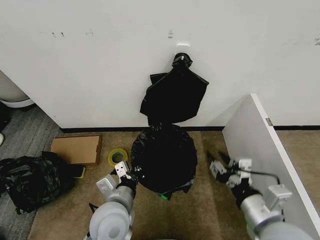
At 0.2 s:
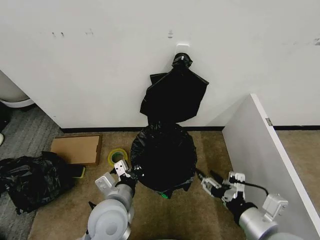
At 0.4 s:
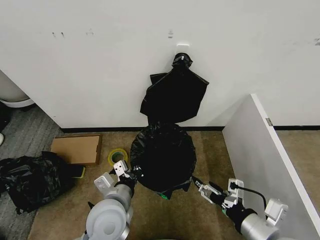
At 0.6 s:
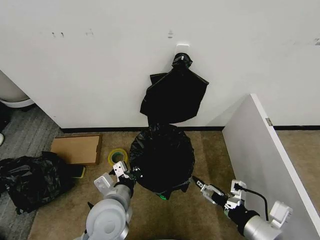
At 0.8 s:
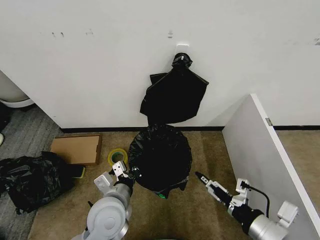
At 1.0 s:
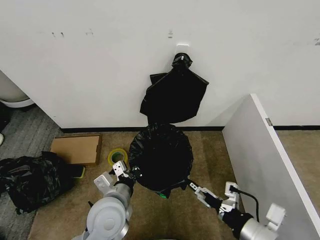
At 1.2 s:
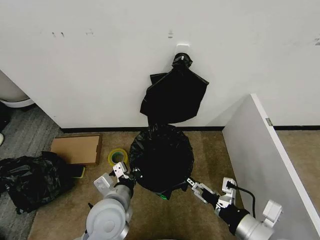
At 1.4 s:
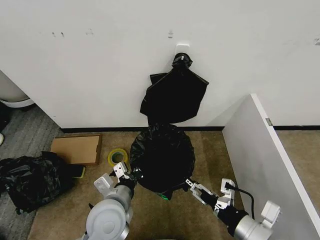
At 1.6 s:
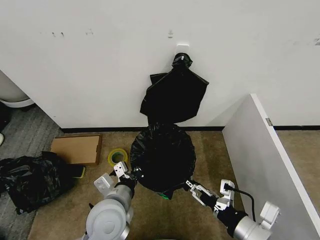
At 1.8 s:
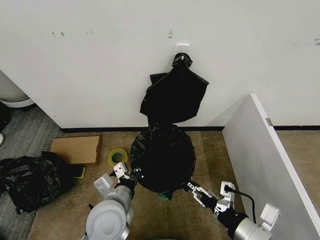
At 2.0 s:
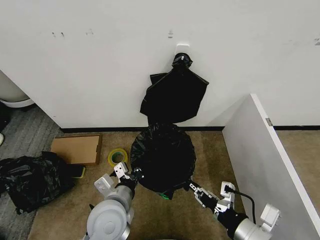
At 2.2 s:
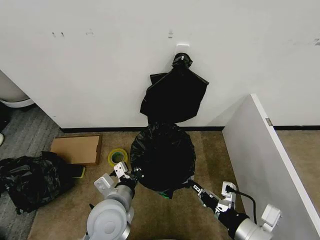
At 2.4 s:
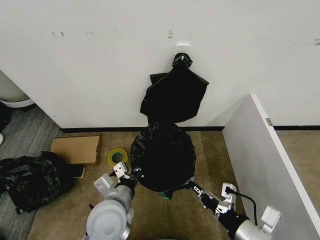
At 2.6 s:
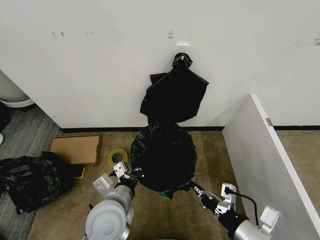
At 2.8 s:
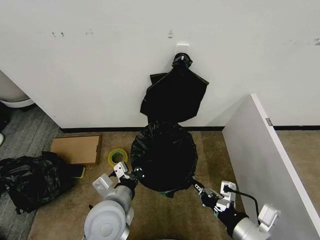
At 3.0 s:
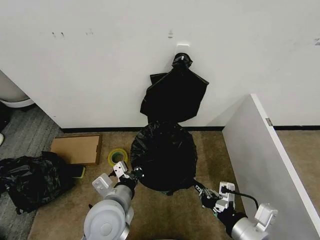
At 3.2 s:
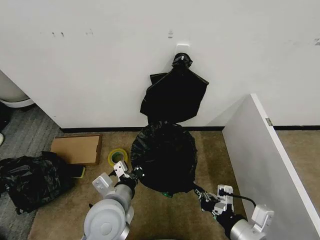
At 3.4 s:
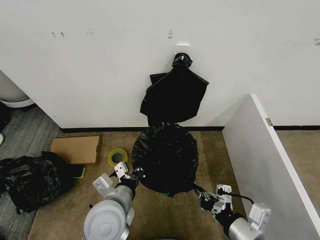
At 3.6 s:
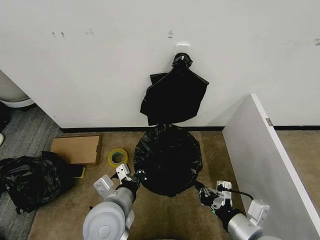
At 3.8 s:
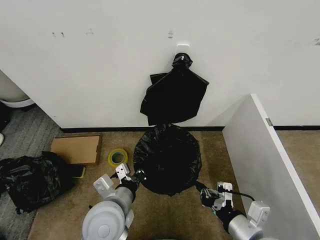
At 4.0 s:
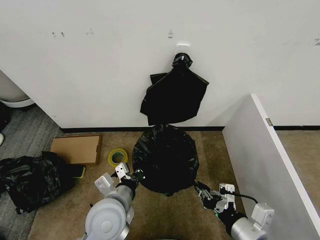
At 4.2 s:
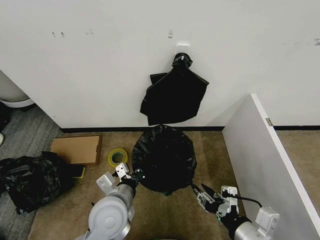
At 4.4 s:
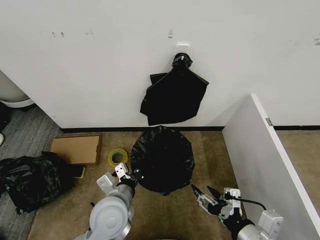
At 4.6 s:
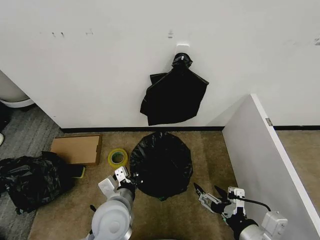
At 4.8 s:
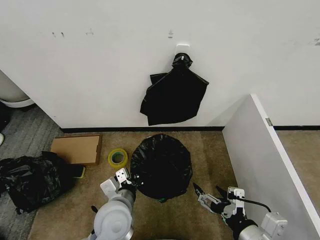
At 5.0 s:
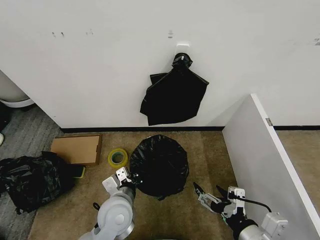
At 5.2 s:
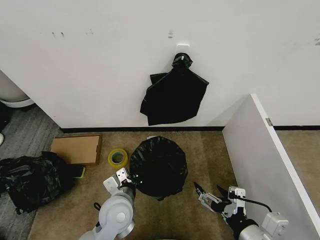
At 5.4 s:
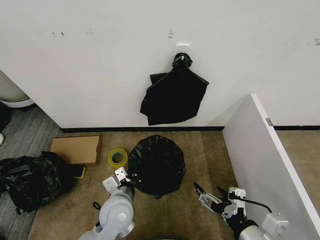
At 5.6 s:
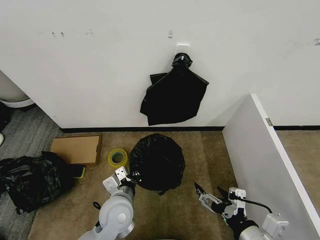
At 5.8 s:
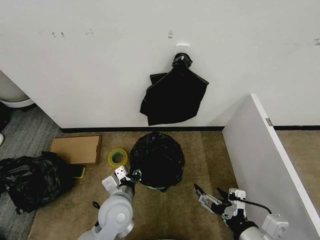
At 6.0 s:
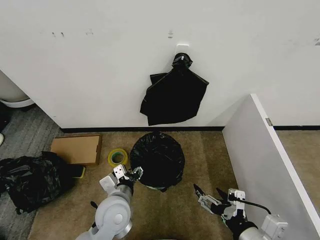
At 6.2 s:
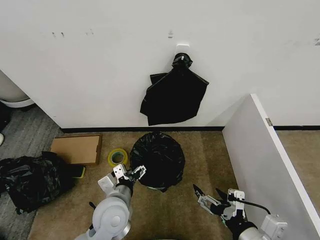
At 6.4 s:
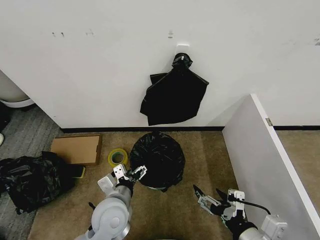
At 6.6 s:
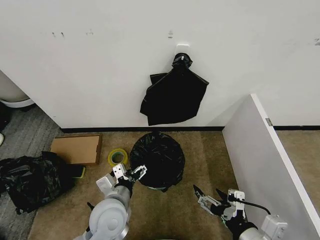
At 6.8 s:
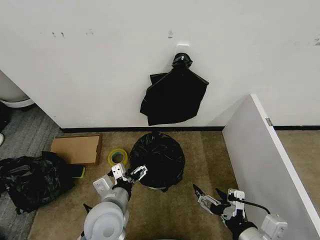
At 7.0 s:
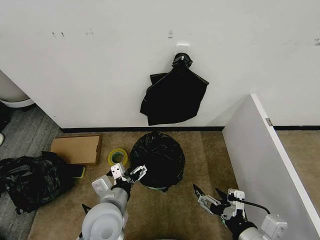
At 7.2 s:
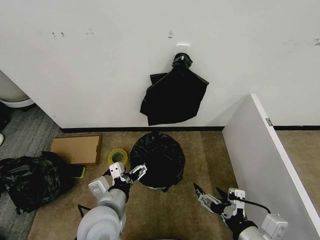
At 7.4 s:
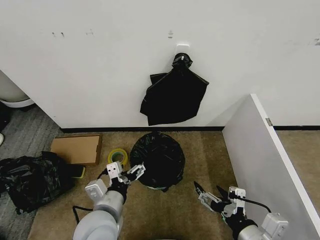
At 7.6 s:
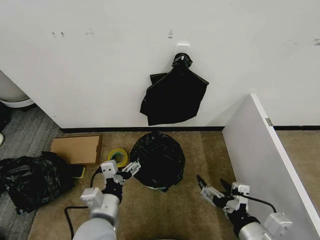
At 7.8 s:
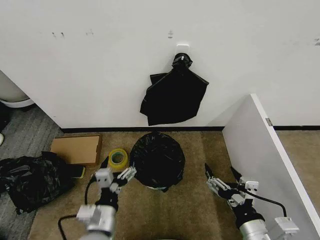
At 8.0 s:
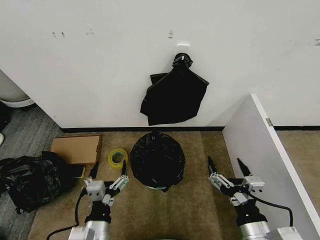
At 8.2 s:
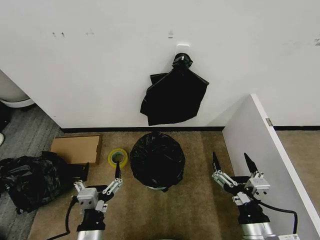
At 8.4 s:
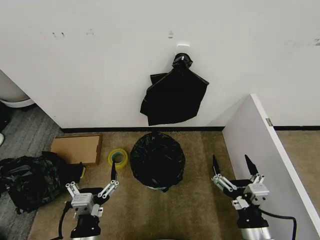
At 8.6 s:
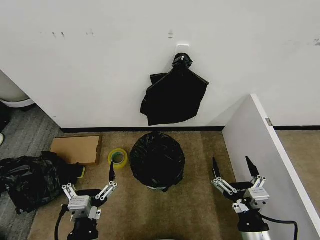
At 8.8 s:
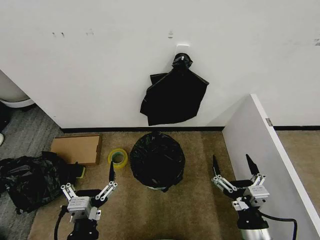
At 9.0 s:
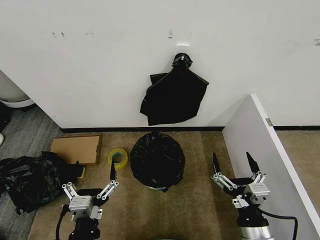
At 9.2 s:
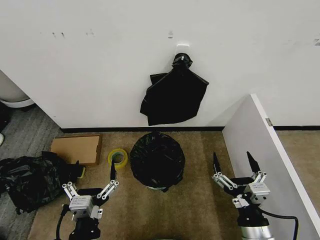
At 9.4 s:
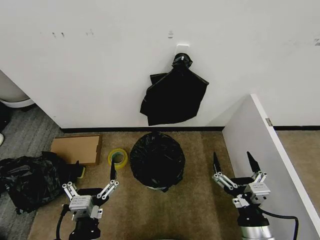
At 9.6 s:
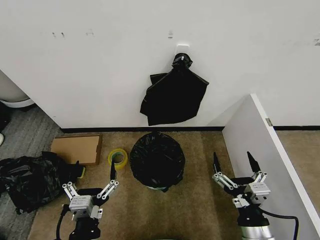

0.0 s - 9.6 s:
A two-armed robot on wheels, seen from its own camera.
Task of the whole recording: Place the garbage bag over the trash bin.
0.0 s - 1.6 s: The right gripper opens and closes again.
1.6 s - 3.2 s: The right gripper closes up.
3.2 s - 4.8 s: The right gripper opens.
4.8 s - 6.4 s: The left gripper opens.
6.4 s - 8.0 s: The left gripper shifts some 10 cm backward.
8.0 s - 9.6 s: There are only small adjustments of the grippers.

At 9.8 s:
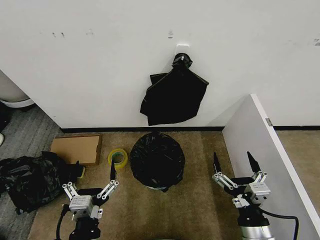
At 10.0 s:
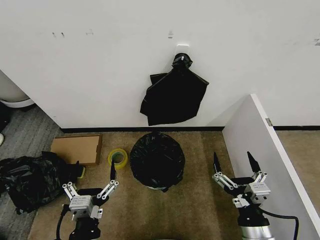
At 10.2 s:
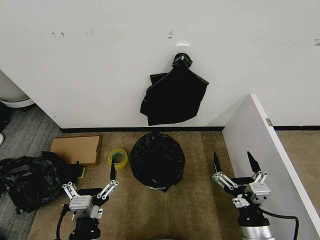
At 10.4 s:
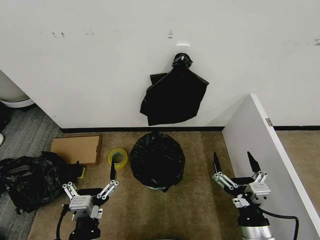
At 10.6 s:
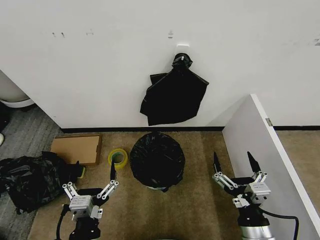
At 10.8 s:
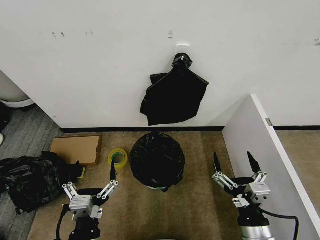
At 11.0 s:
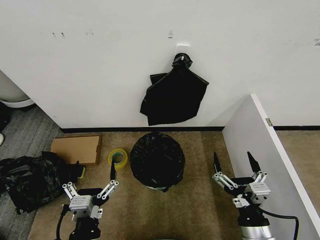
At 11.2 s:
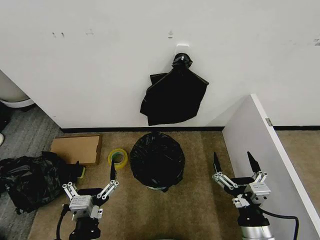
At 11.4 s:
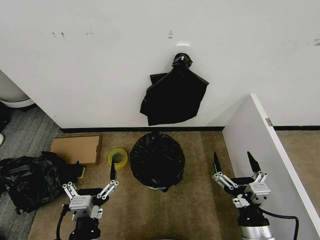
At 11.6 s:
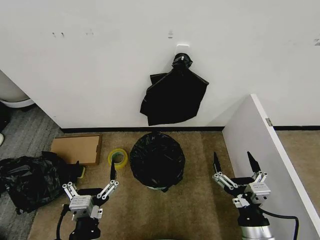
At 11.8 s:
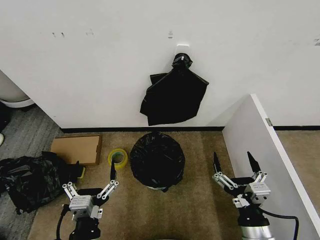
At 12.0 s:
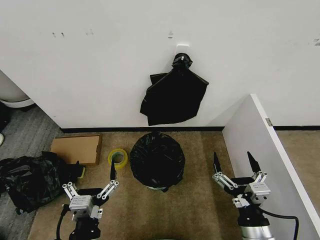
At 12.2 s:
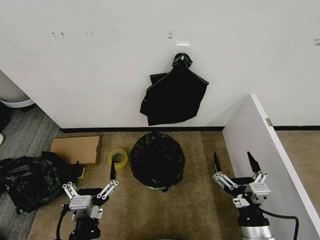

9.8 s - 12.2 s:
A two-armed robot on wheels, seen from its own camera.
Task of the whole recording: Place the garbage bag over the trash bin.
9.8 s - 12.2 s: The two grippers keep their place.
